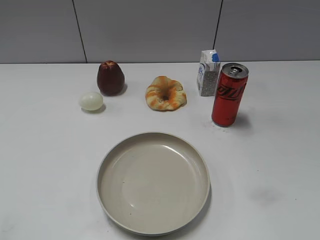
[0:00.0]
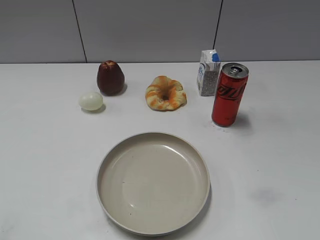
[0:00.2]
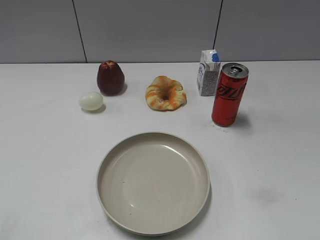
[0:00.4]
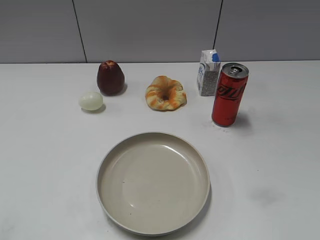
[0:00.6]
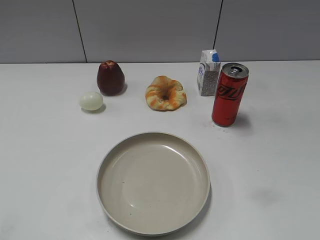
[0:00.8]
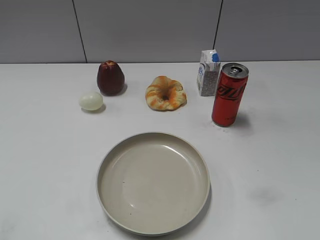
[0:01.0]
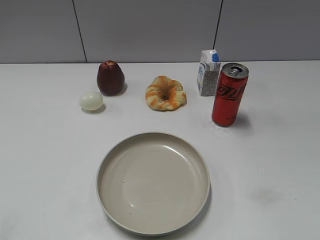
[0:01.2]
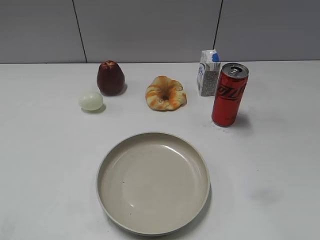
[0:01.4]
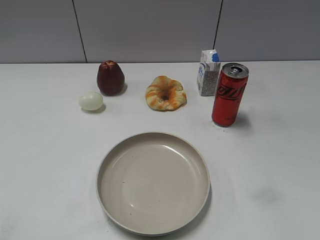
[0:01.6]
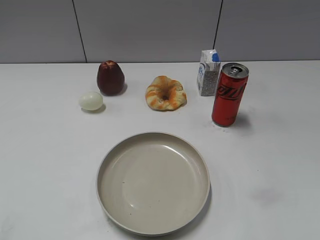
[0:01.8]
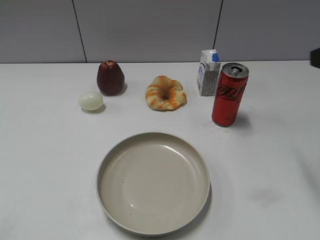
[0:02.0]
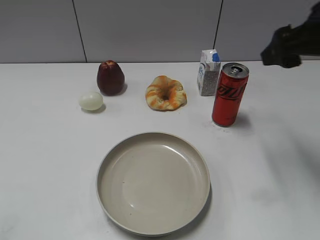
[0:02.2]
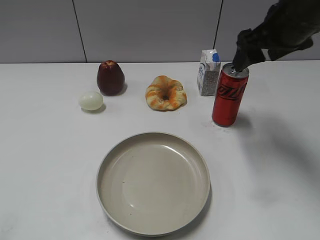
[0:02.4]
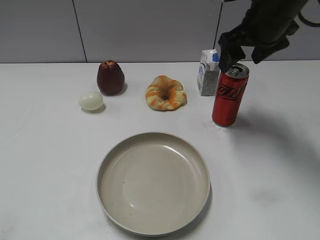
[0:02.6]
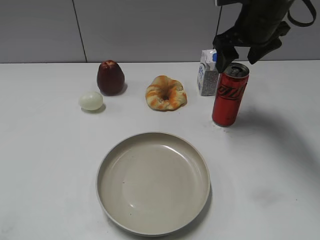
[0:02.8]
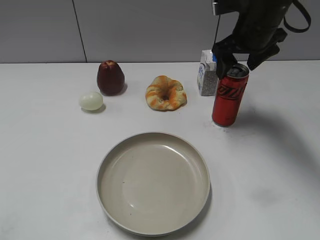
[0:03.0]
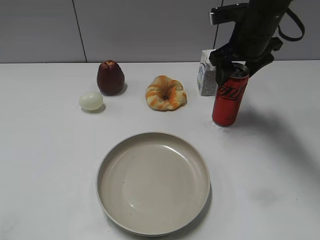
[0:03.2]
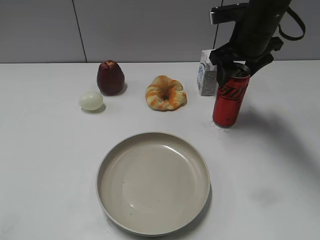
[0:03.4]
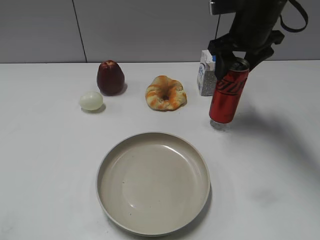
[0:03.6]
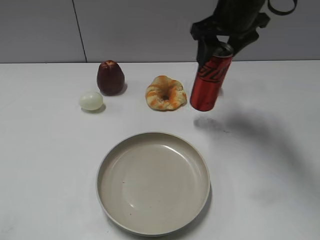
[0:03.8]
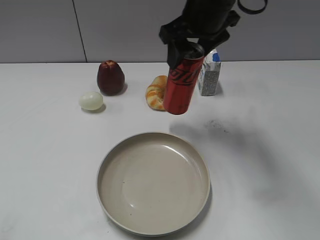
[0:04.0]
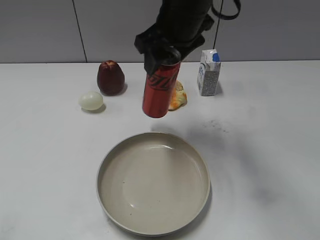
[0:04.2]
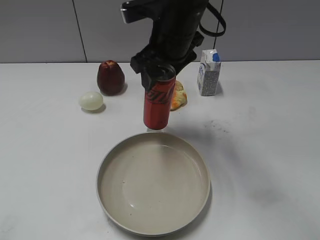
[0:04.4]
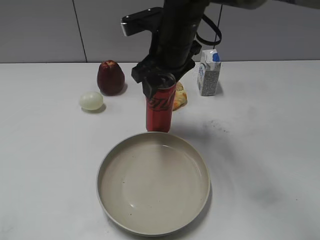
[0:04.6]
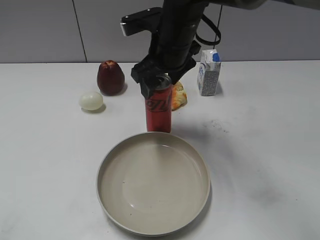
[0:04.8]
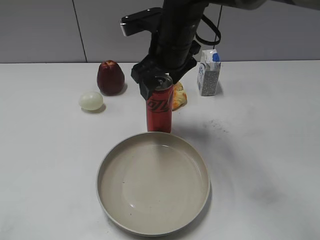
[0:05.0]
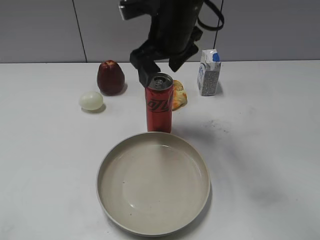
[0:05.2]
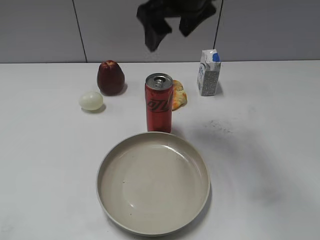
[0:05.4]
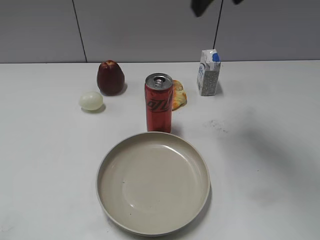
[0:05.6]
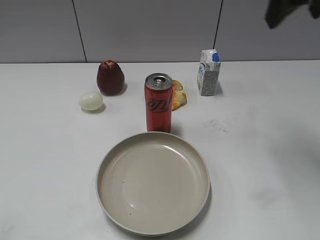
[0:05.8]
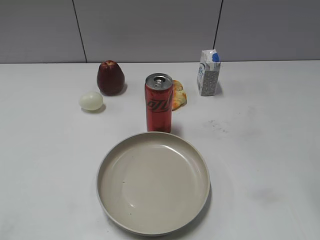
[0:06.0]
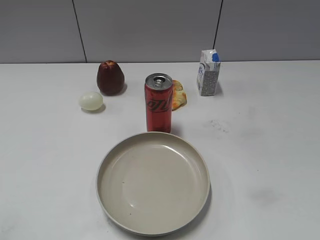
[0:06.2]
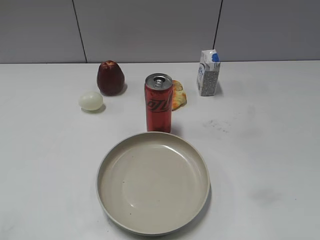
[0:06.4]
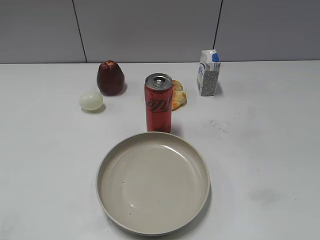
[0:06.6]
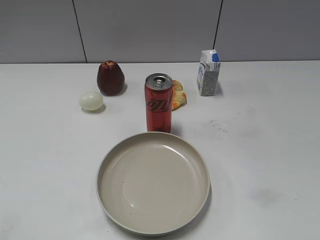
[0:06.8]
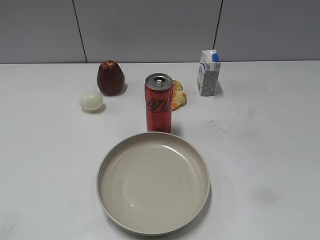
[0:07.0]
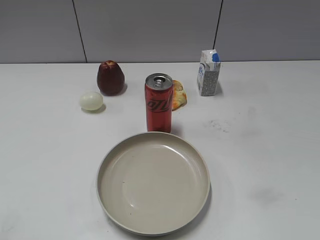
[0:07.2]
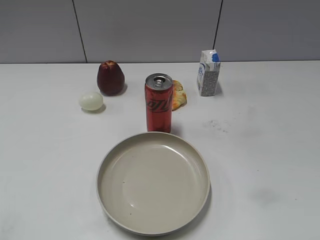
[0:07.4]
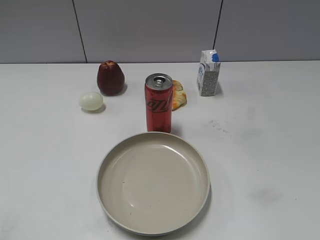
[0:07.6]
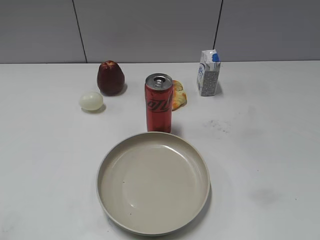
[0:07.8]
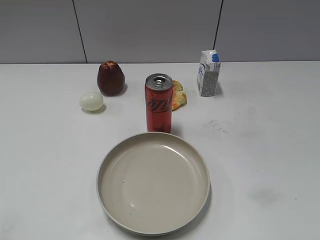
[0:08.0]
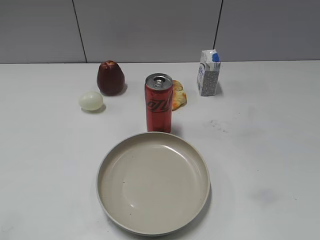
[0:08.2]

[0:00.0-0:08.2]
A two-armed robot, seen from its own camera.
Step, 0:01.0 to 0:03.4: Grasp the cola with right gripper.
Step, 0:03.6 to 0:05.2: Place the cola on the table with right gripper.
0:01.6 to 0:03.2: The right gripper shifts about 35 cm forward and to the left, and opens and closes again.
0:03.2 to 0:05.0: The right gripper goes about 15 cm to the left, and closes, then opens again.
0:05.0 to 0:06.6: The right gripper goes approximately 40 cm backward and to the right, and closes up.

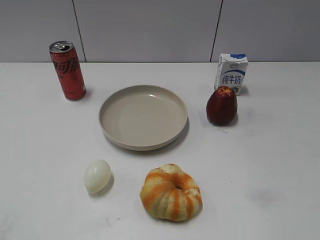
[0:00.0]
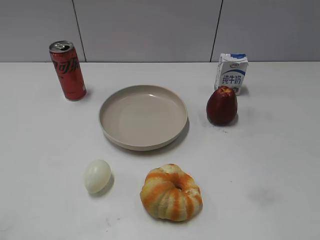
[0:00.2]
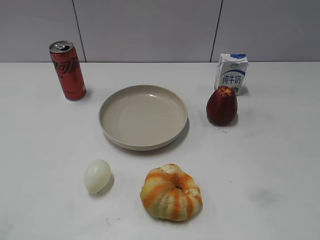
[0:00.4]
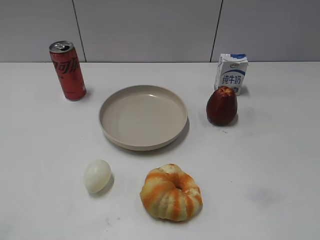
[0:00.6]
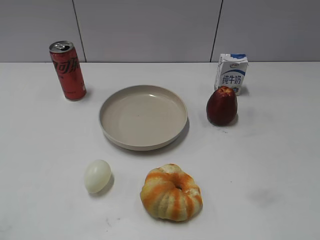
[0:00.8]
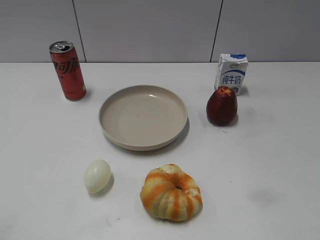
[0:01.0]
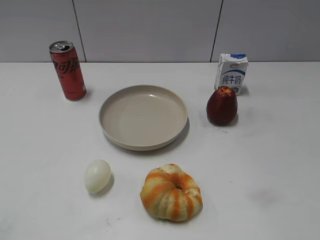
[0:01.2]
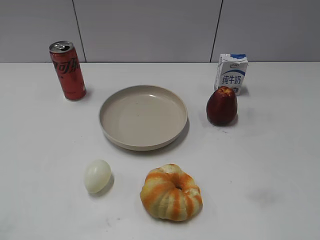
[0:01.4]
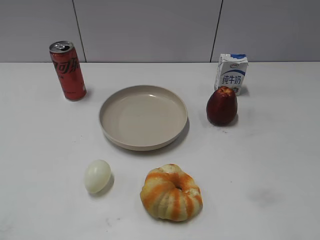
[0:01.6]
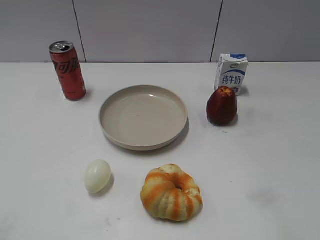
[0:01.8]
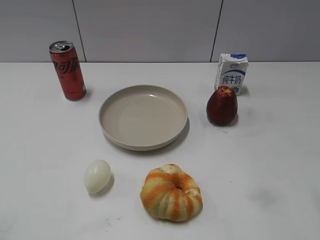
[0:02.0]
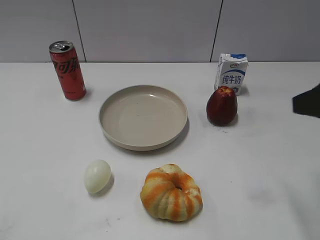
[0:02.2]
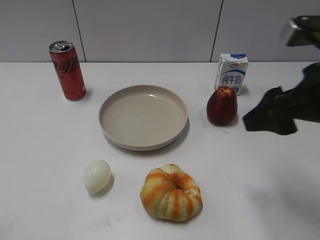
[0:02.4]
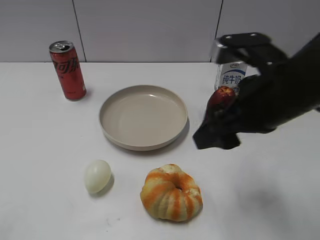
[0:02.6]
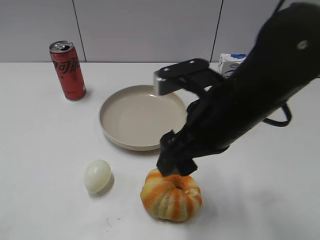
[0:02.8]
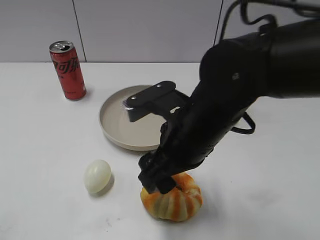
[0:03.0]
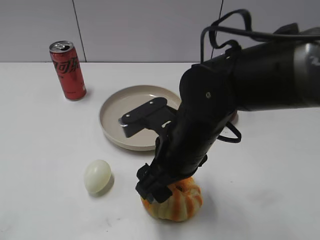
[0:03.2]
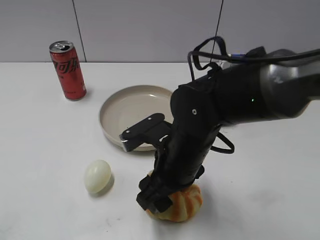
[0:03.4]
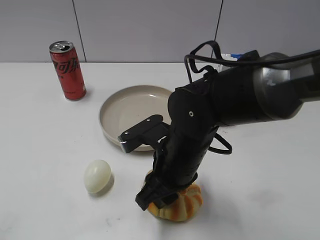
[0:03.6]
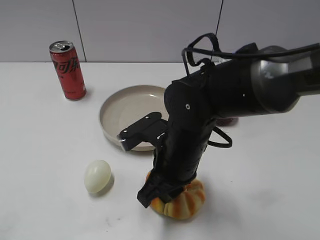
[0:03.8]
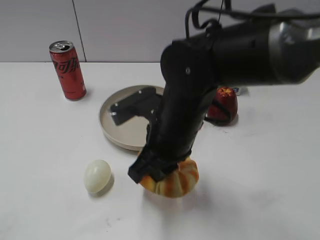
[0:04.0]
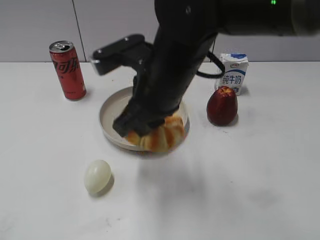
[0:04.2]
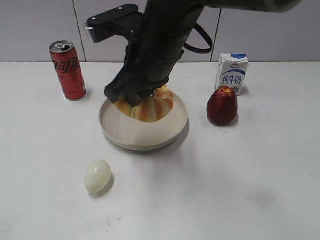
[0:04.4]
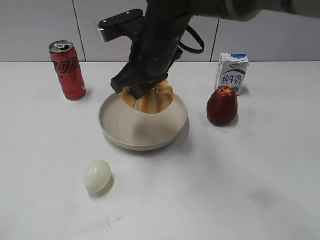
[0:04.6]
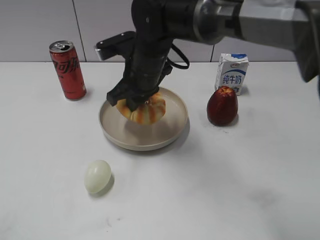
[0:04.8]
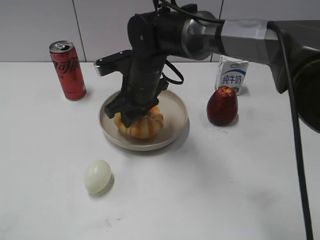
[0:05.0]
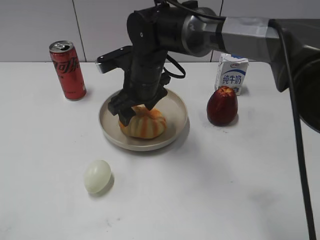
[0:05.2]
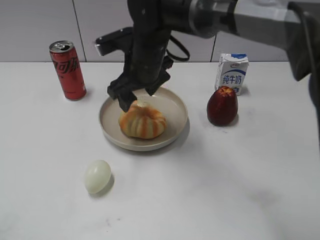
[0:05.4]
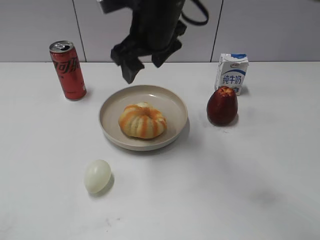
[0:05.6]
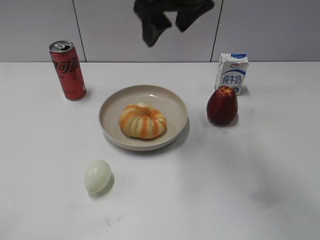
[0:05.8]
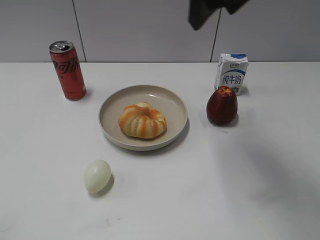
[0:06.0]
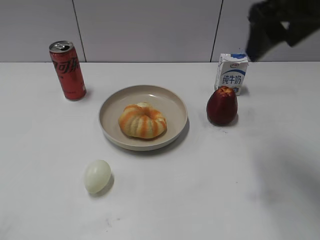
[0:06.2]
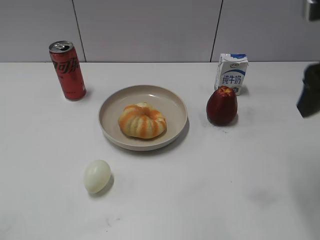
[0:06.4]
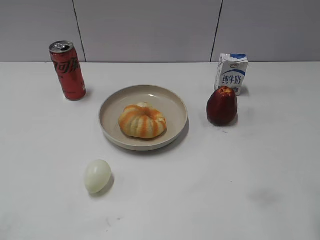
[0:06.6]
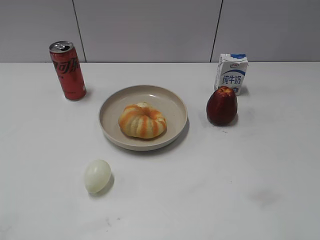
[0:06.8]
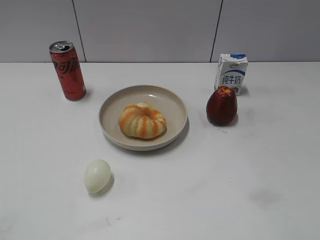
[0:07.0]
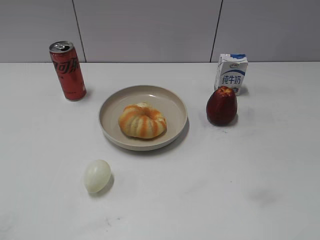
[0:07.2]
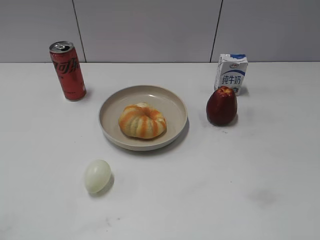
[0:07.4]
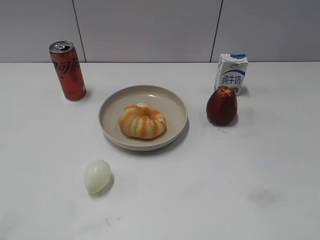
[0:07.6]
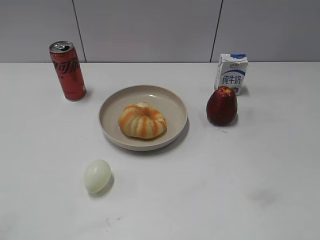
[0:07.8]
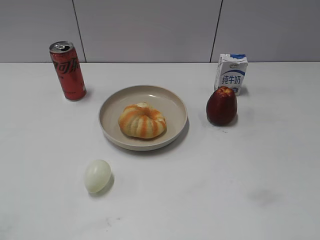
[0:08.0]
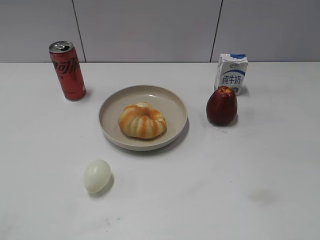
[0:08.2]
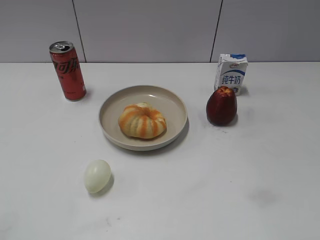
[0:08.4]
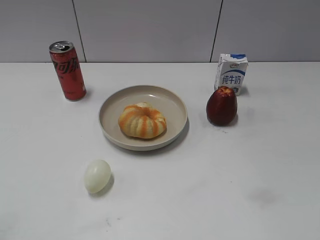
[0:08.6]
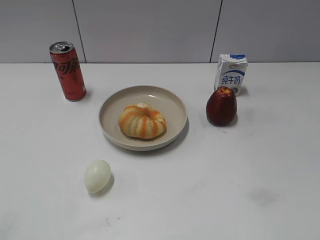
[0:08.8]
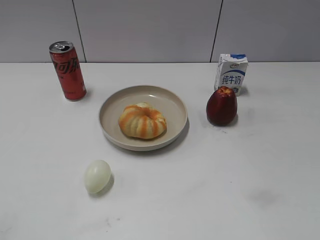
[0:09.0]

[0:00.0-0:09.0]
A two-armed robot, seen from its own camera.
Step, 0:01.4 to 0:03.6: Grasp the round bread with right gripper.
Step, 0:03.8 to 0:05.4: Place the round bread on the plate with right gripper.
0:01.6 to 0:03.0: The right gripper heads to the left, forward and downward, covering roughly 35 cm.
0:03.0 to 0:04.4: The right gripper is displaced forward, upward and to the left by about 10 cm, and closes.
0:04.4 to 0:06.0: The right gripper shifts about 15 cm upward and to the right, and opens up.
0:06.0 to 0:07.6: The right gripper moves backward and to the right, about 35 cm.
